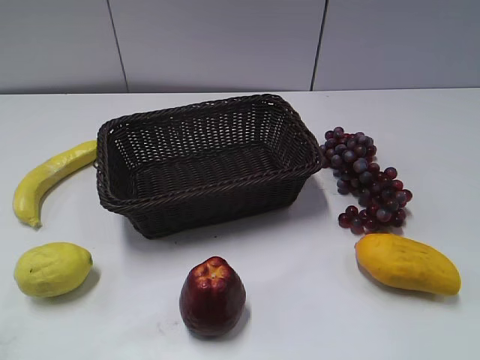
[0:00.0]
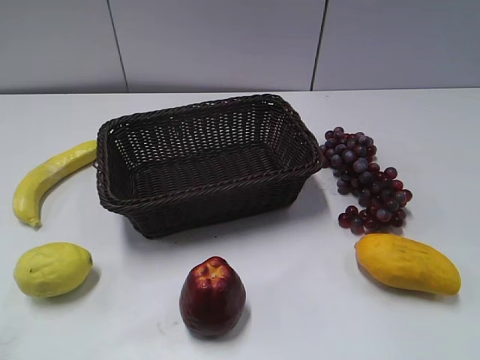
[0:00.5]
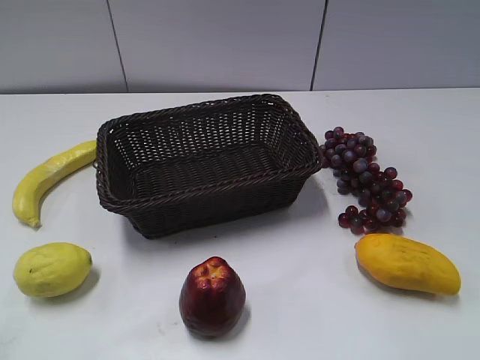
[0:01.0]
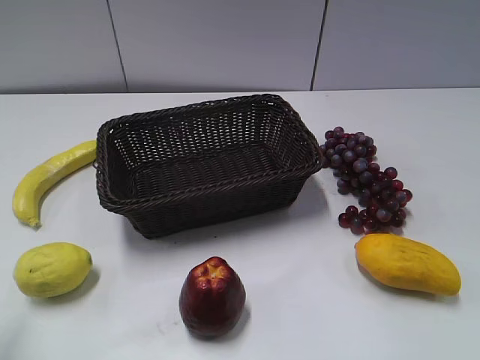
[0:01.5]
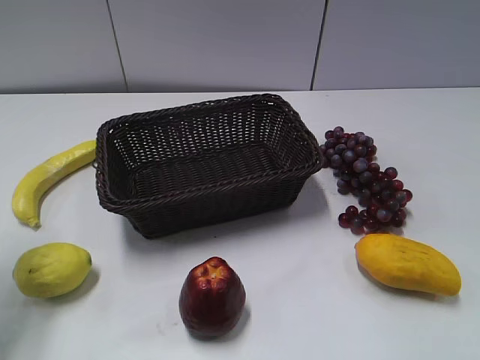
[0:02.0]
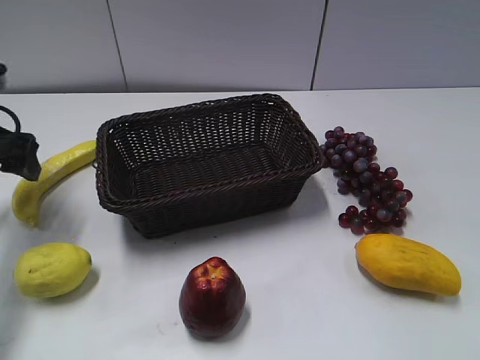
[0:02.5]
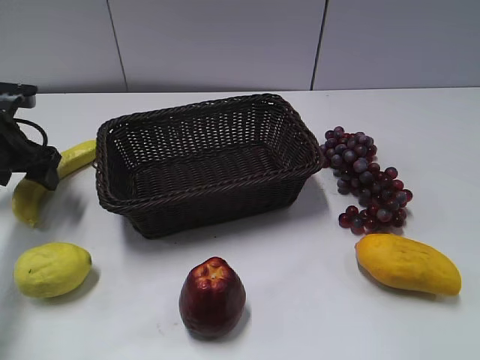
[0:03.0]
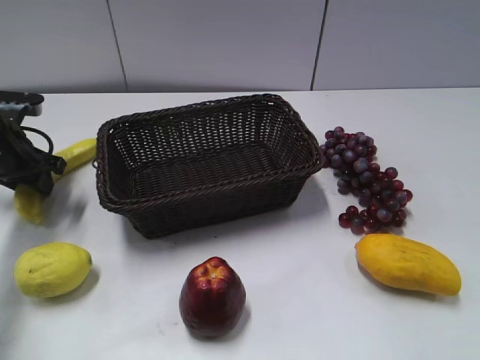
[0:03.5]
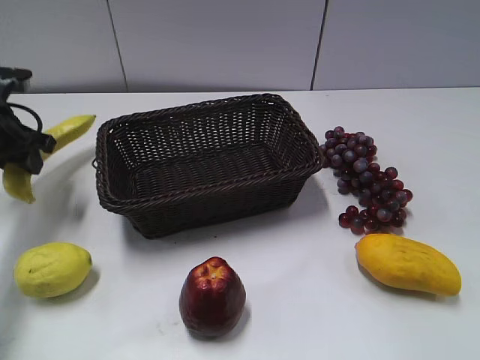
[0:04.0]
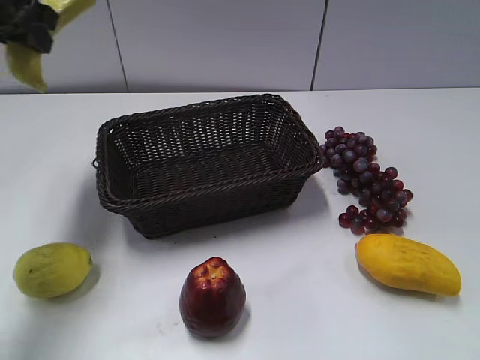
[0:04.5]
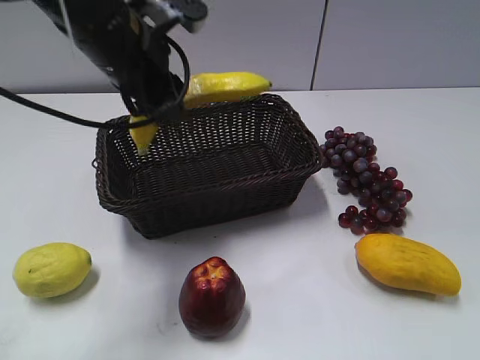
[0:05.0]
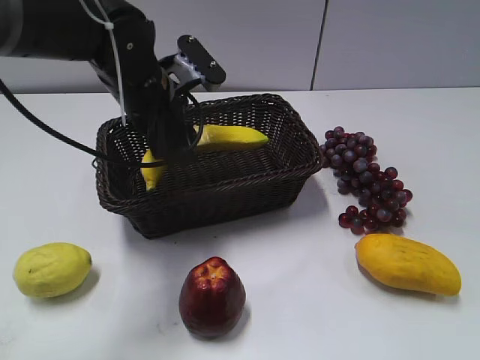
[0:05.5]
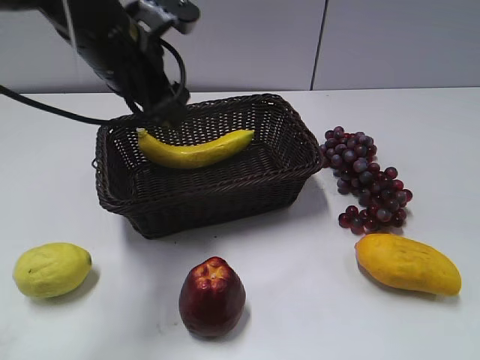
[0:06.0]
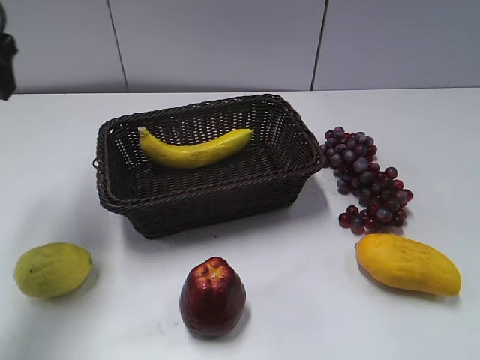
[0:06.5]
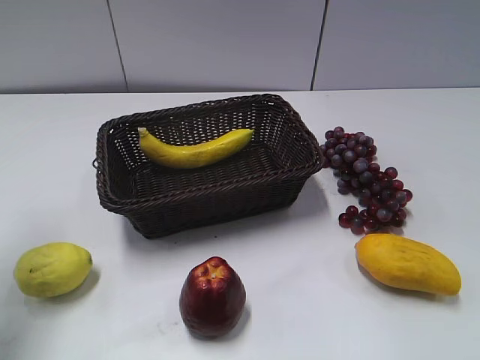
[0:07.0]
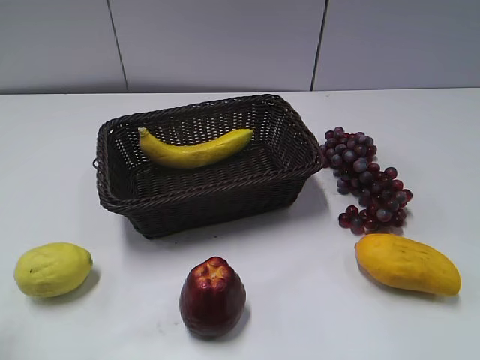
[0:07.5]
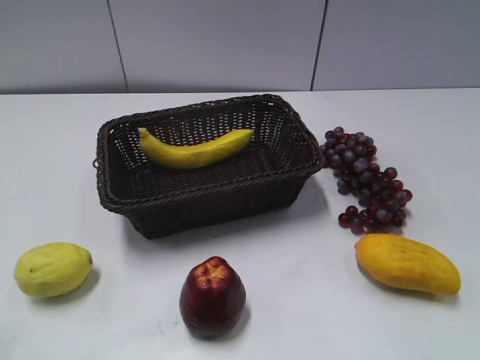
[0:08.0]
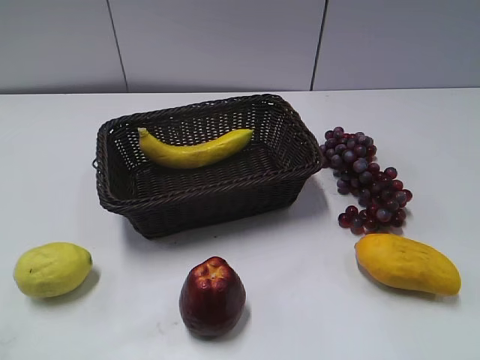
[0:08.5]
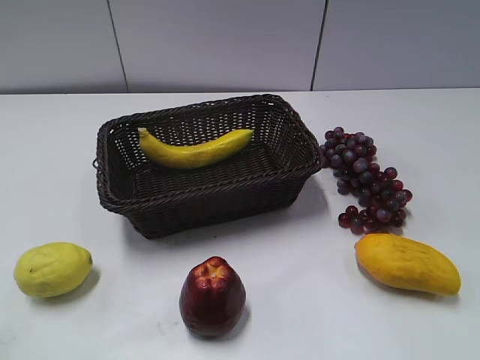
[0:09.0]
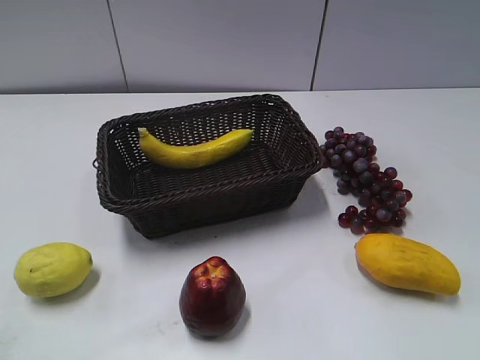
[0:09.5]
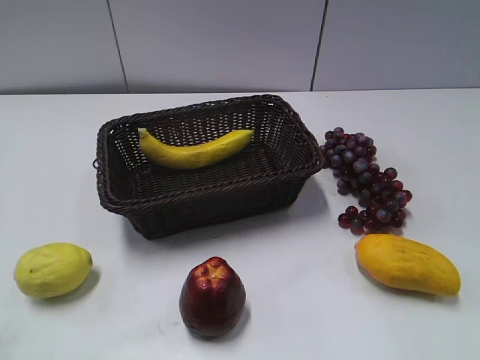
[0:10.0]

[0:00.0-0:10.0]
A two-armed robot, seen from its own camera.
Step, 0:02.0 to 0:04.0: Grasp the banana with left gripper.
Step, 0:04.5 to 0:05.5: Place the banana in the basket with left gripper.
0:02.0 to 0:04.0: The left gripper is displaced forward and downward by about 15 cm, and closes its fingers.
0:04.0 to 0:06.0: The left gripper goes some 20 cm to the right and upward, and opens up.
0:06.0 to 0:08.0: The left gripper shifts some 40 cm backward and to the left.

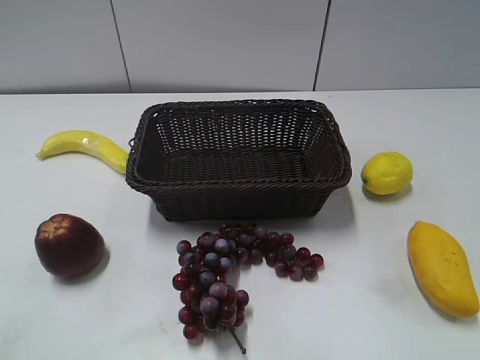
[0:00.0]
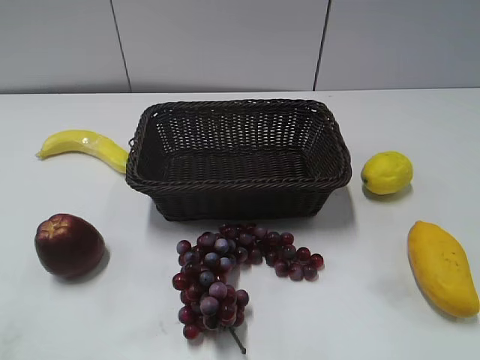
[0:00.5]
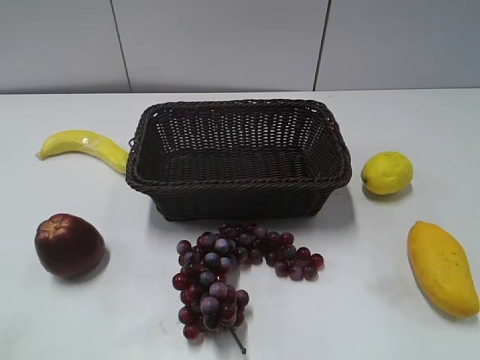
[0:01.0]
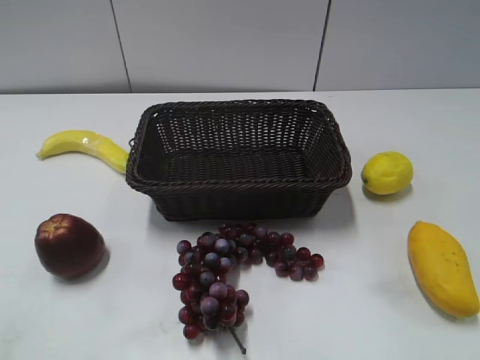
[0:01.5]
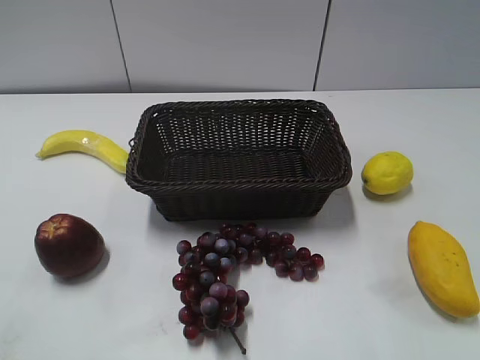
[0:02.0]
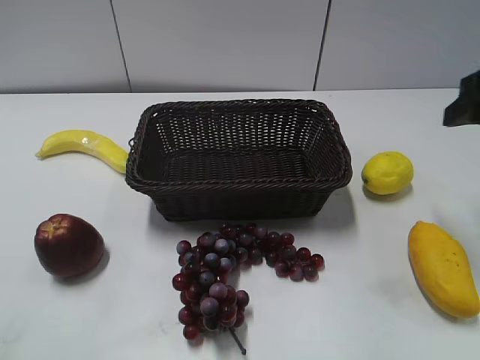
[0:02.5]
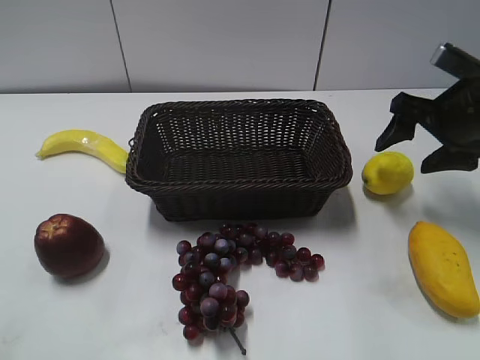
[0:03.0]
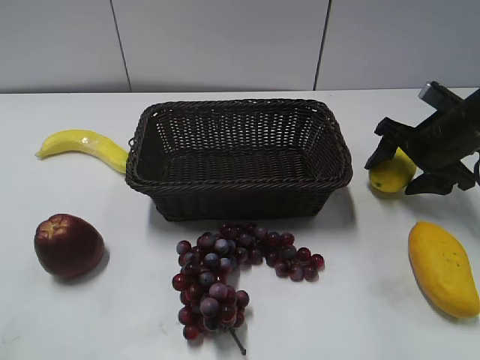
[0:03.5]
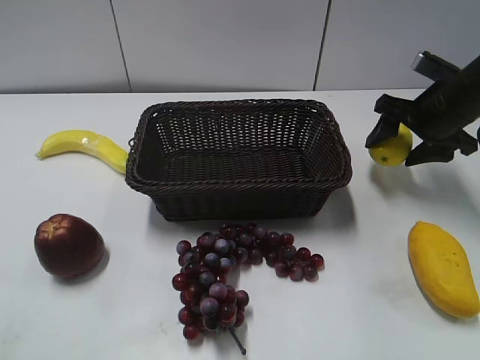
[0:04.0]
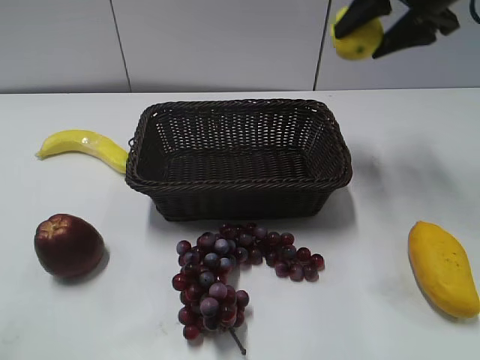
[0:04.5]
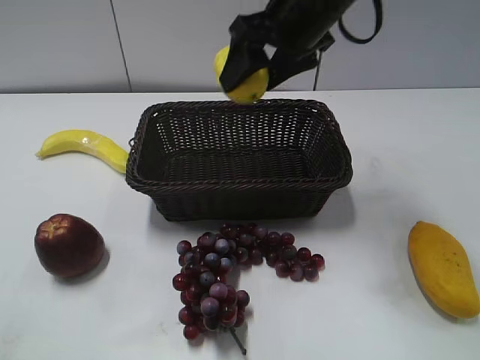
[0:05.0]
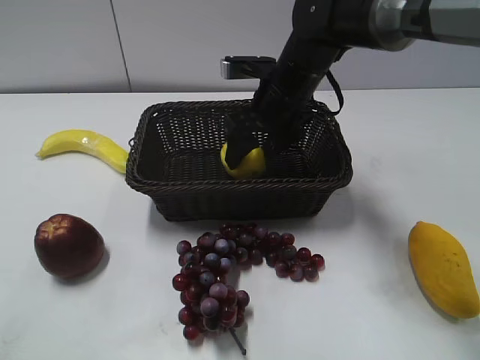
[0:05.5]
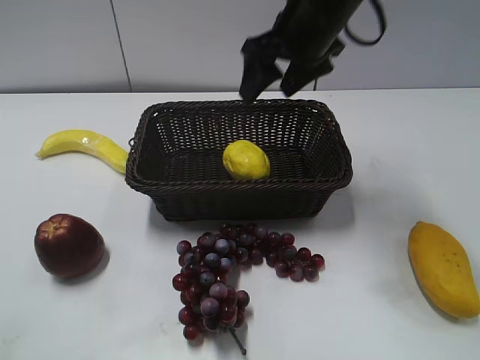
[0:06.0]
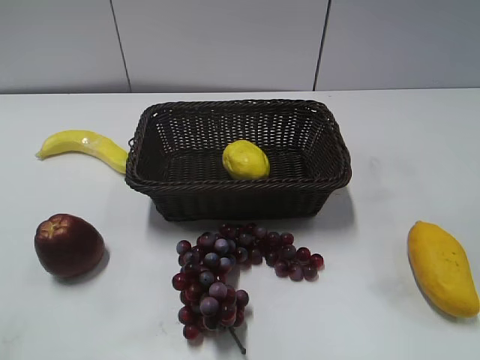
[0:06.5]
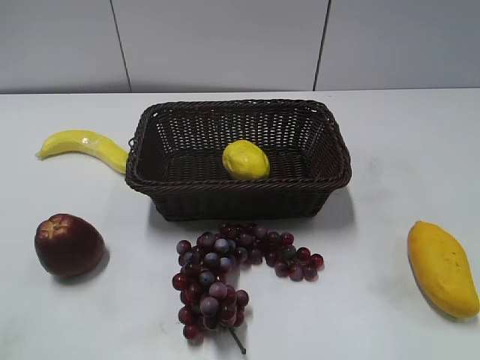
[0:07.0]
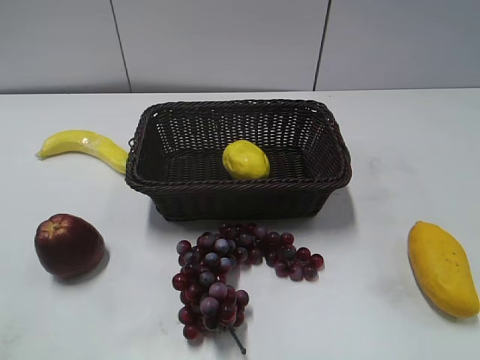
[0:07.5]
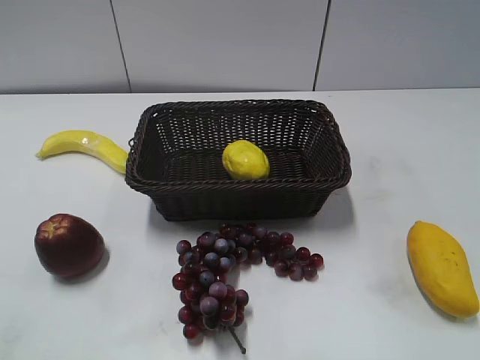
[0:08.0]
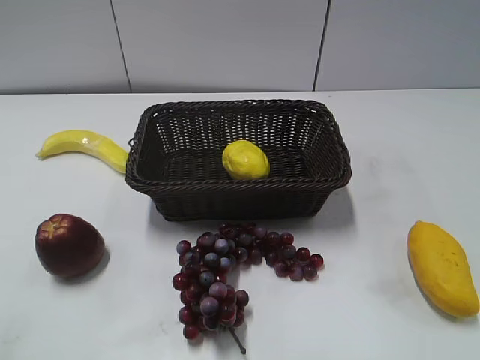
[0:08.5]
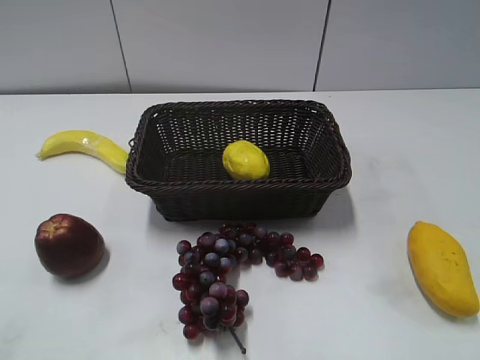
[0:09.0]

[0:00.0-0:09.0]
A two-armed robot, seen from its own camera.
Step, 0:02.5 to 0:03.5: Grasp the lemon with right gripper.
Step, 0:04.0 to 0:05.5: Place the lemon in the basket with right gripper.
0:02.0 to 0:04.5: The right gripper travels forward by roughly 30 cm, and opens and closes again.
0:04.5 to 0:07.0: The right gripper is displaced backward by approximately 35 cm.

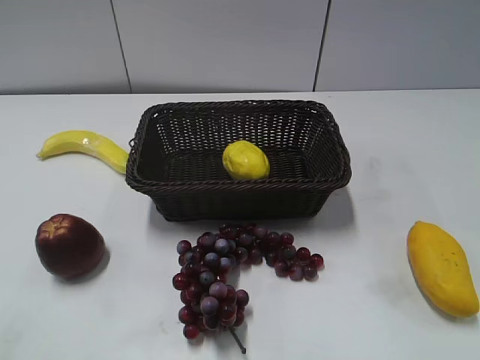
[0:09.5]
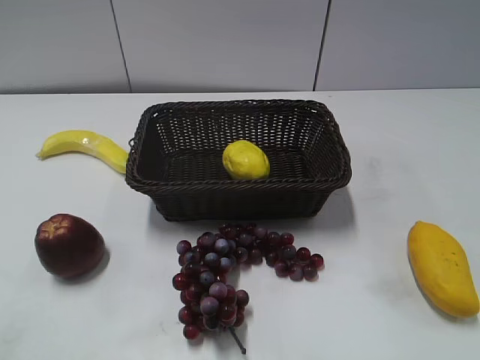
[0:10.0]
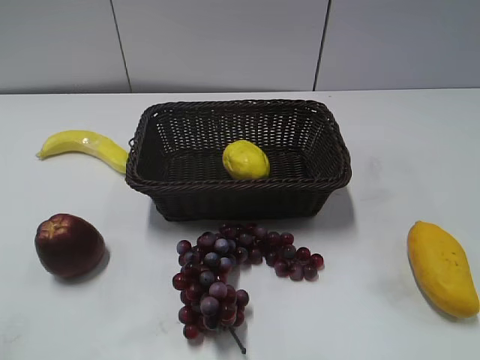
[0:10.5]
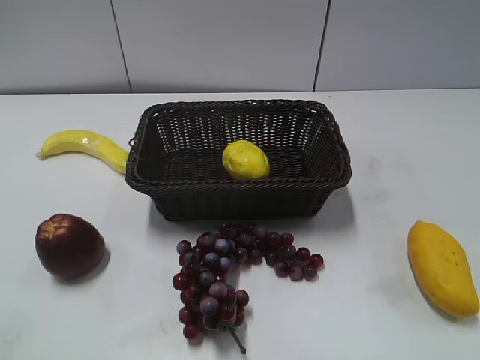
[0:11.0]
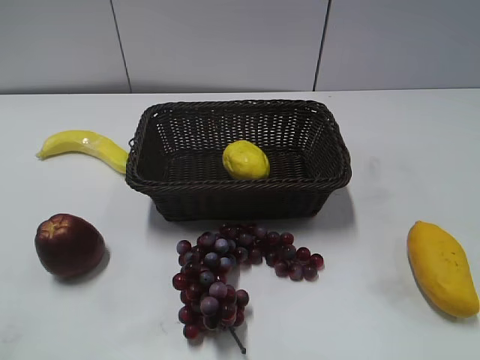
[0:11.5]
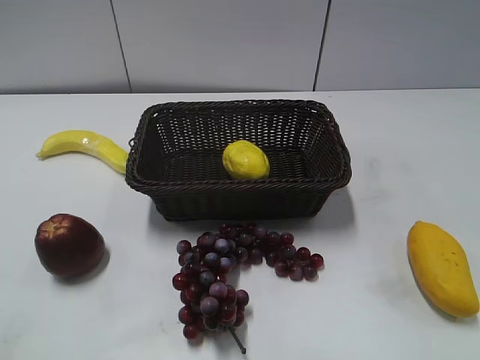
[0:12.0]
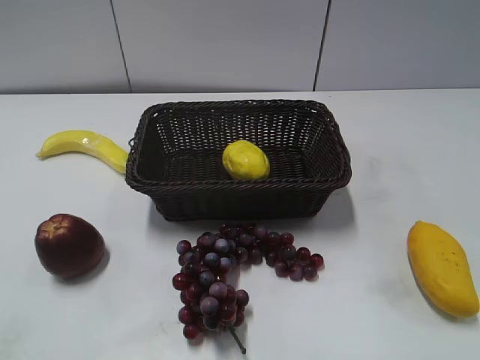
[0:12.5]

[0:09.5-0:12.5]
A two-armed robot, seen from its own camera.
0:09.5 to 0:12.5: Both grippers stay put.
